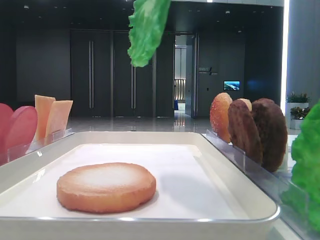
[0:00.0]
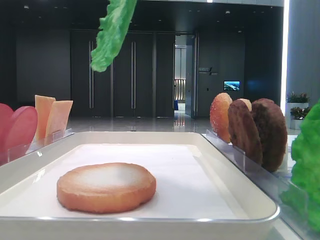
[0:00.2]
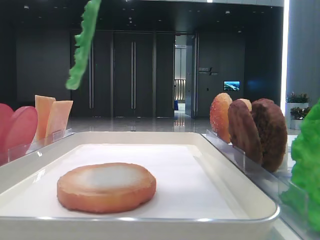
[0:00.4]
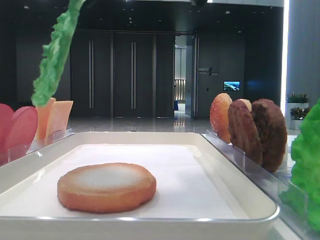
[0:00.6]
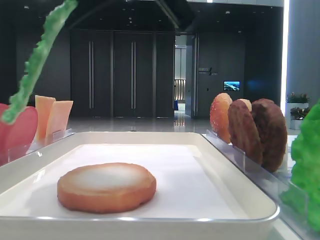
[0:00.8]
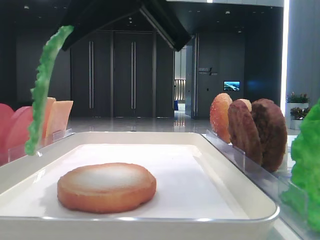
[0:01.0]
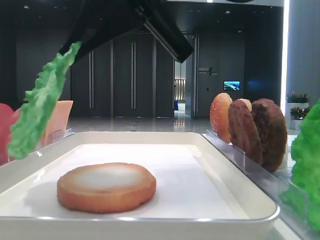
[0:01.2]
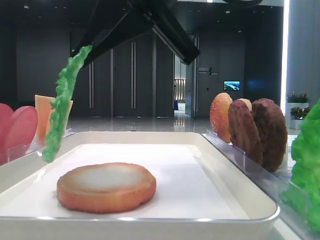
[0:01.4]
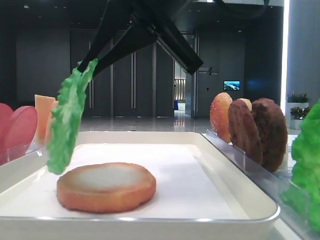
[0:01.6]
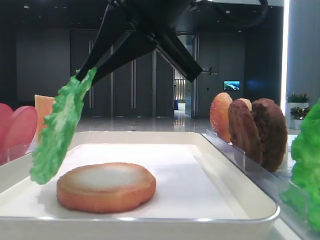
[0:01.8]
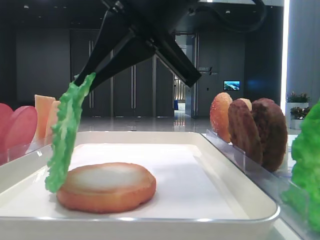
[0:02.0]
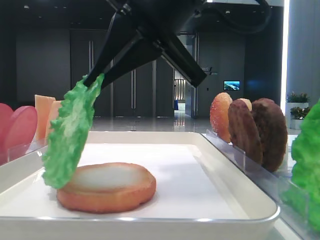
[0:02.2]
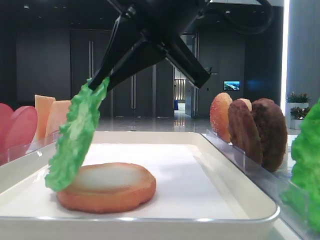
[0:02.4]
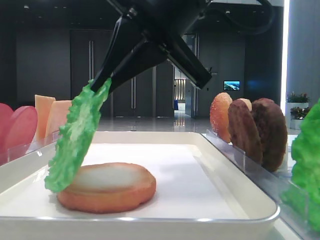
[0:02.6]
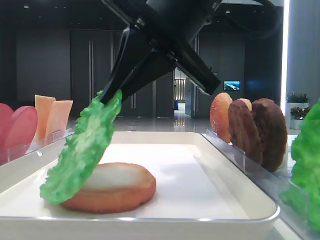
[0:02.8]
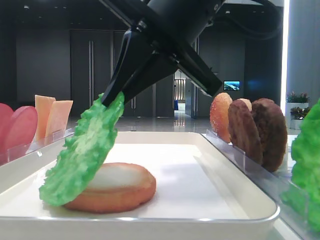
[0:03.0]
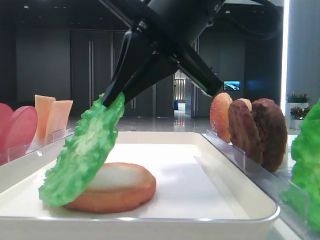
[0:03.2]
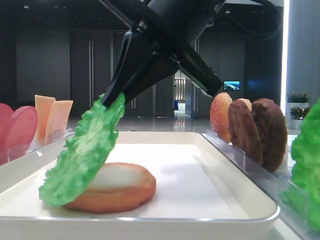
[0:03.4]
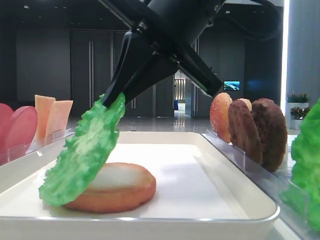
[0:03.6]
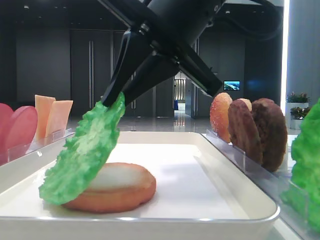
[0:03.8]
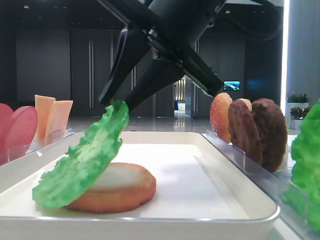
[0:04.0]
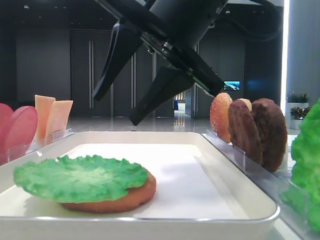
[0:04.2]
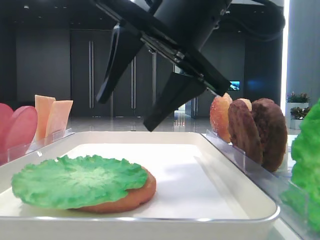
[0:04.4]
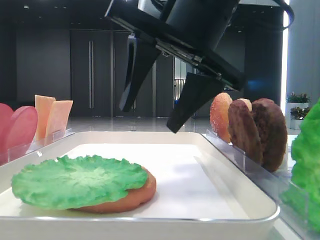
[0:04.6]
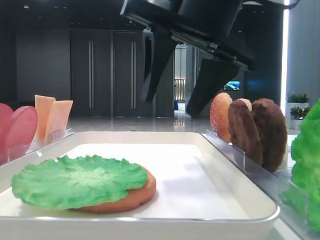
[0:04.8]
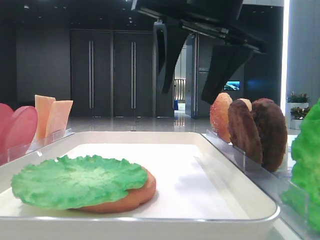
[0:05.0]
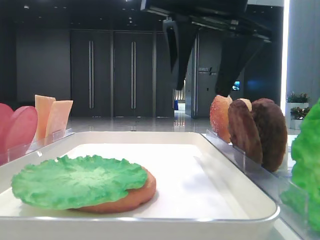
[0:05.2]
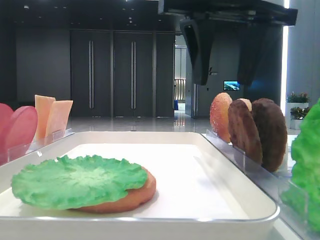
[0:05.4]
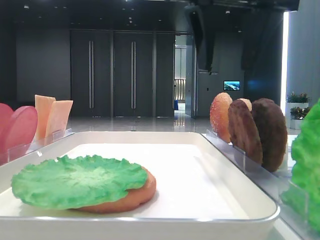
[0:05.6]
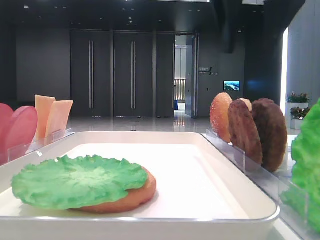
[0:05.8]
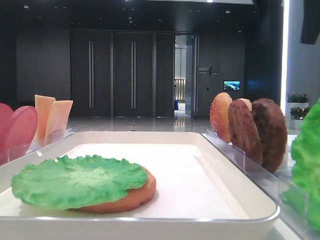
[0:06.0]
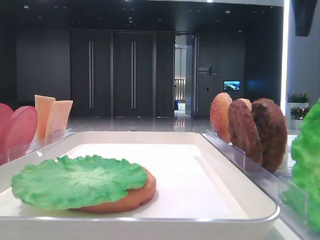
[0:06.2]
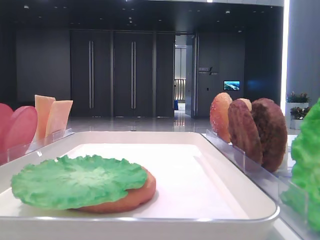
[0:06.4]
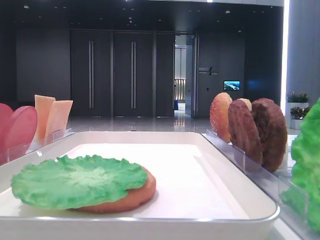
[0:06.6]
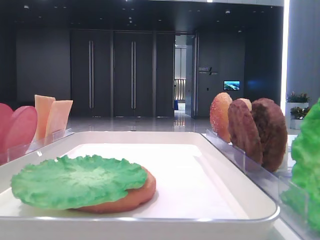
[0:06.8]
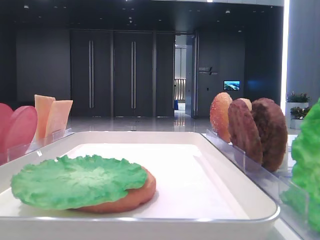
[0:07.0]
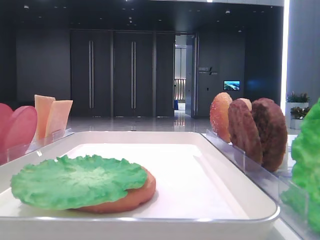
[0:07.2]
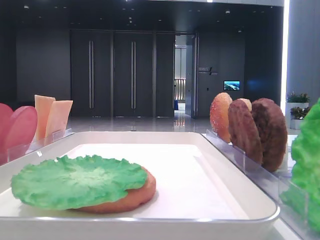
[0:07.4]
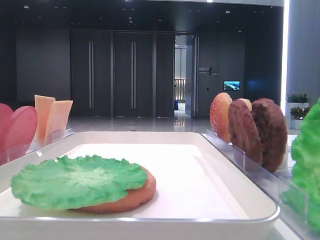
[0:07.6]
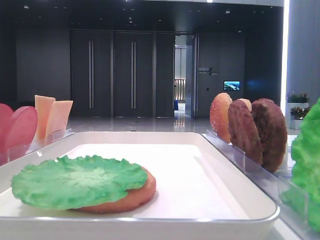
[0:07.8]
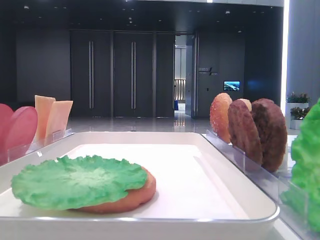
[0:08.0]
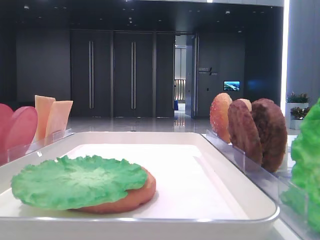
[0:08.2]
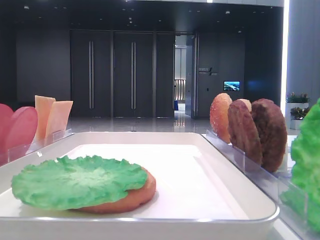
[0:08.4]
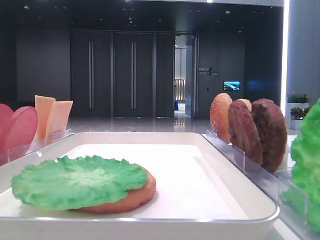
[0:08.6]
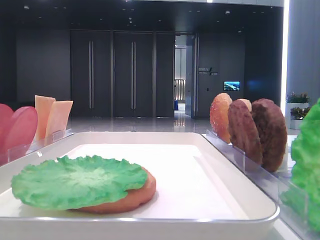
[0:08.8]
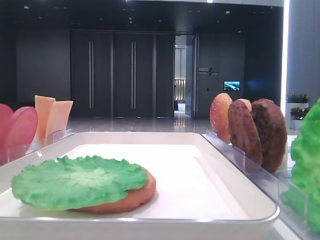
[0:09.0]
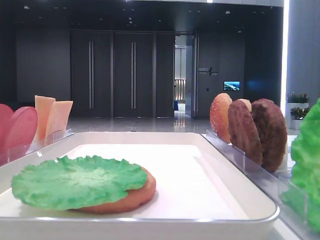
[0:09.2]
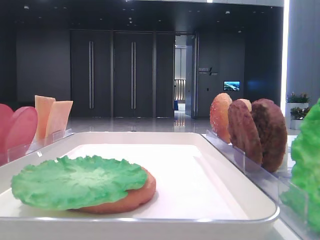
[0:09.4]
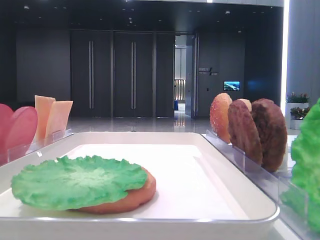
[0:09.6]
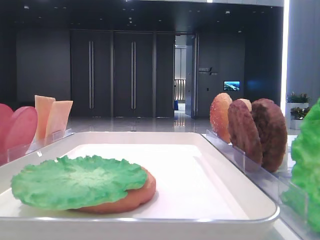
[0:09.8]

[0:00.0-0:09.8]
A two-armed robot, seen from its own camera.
Step, 0:00.0 to 0:04.0: Place the lettuce leaf on the bread slice with the right hand.
0:00.0 to 0:01.4: The right gripper travels downward and to the left by some 10 cm.
0:01.4 to 0:02.8: The grippers stay close to where they were, moving slightly.
0:02.8 to 0:04.2: The right gripper opens.
0:04.2 to 0:05.6: The right gripper heads upward, covering about 5 cm.
0:05.6 to 0:07.0: The right gripper goes some 25 cm to the right.
0:07.0 to 0:08.4: The right gripper is displaced backward by about 25 cm.

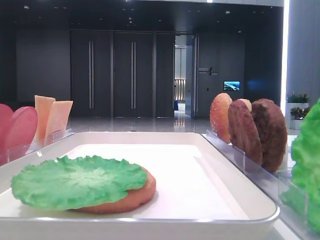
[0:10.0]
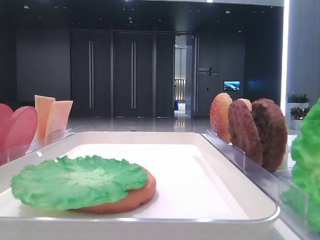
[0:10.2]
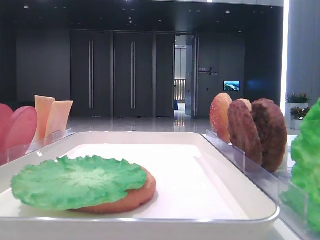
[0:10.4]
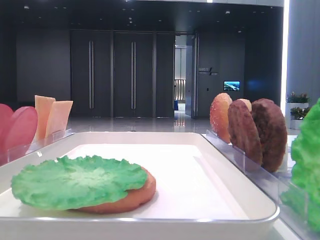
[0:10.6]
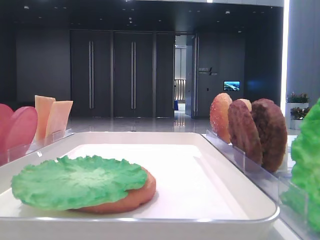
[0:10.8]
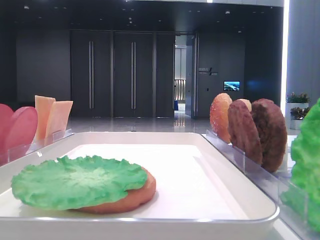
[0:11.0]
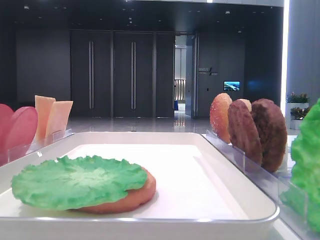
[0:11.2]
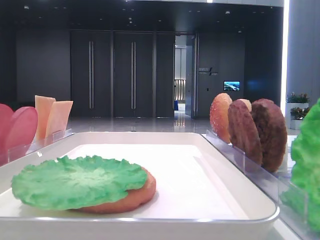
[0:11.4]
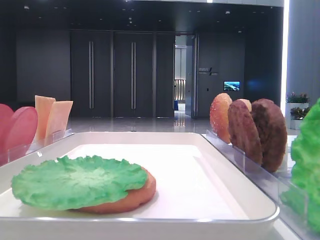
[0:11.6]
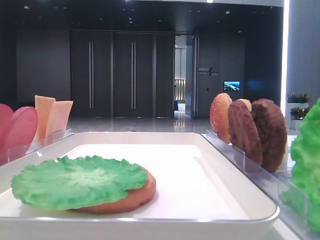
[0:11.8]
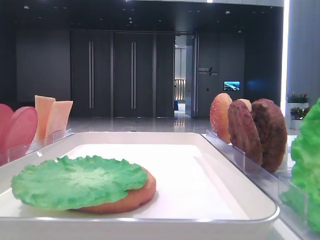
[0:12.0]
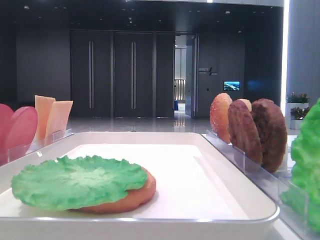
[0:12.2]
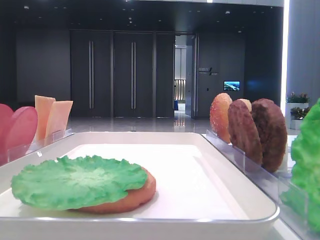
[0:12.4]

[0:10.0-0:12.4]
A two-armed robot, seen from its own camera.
0:10.0 to 0:12.4: Neither gripper changes place.

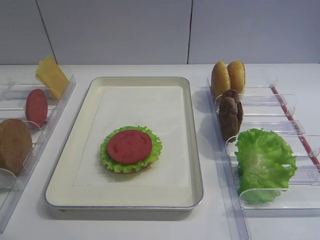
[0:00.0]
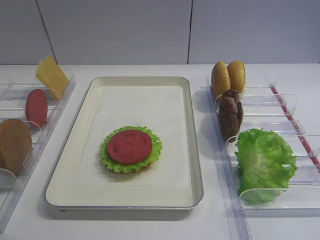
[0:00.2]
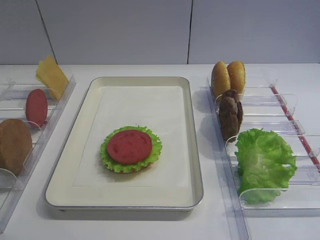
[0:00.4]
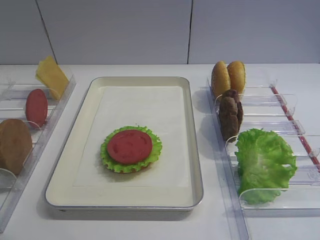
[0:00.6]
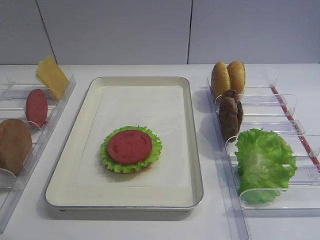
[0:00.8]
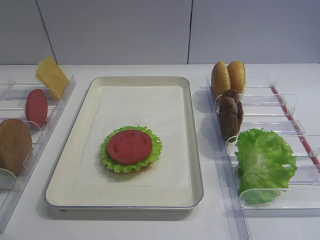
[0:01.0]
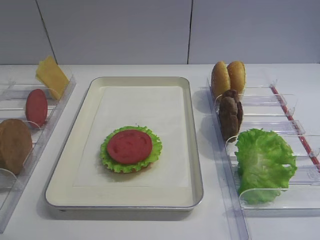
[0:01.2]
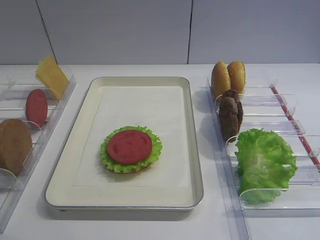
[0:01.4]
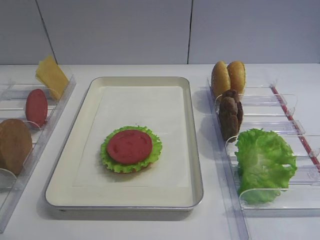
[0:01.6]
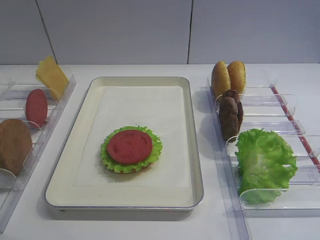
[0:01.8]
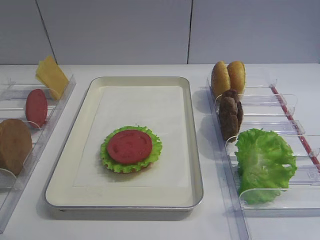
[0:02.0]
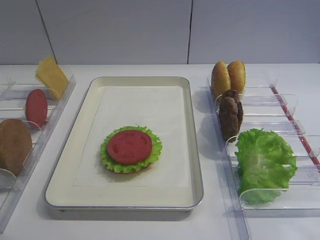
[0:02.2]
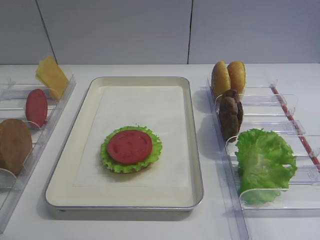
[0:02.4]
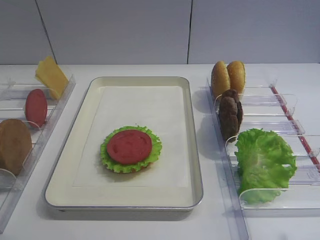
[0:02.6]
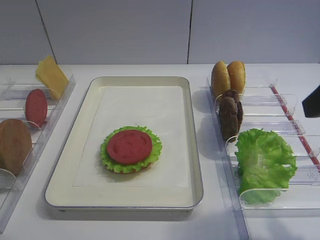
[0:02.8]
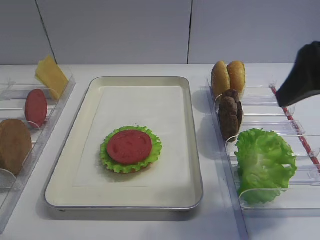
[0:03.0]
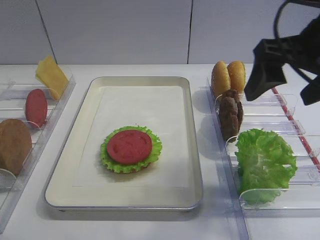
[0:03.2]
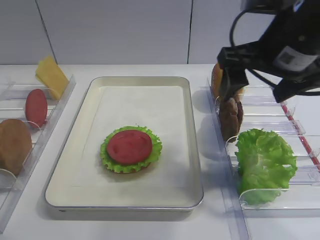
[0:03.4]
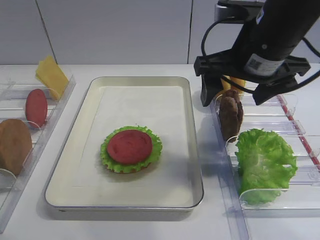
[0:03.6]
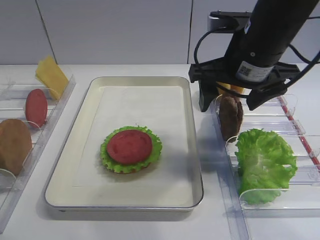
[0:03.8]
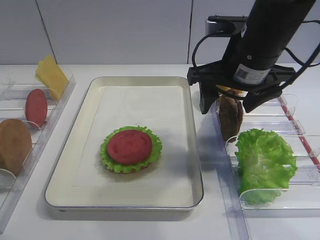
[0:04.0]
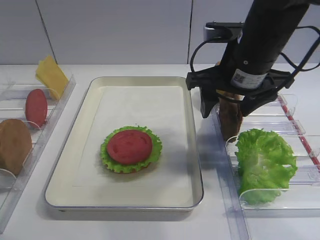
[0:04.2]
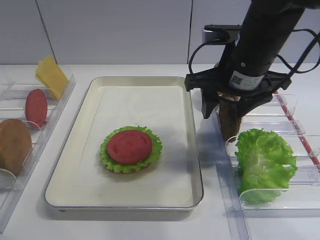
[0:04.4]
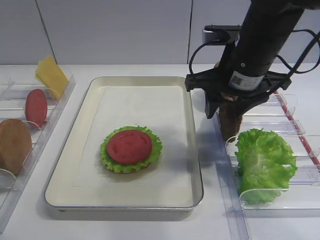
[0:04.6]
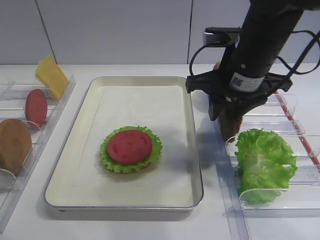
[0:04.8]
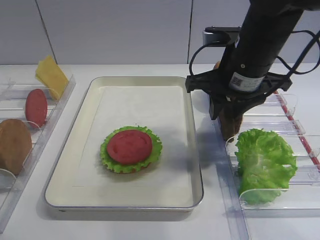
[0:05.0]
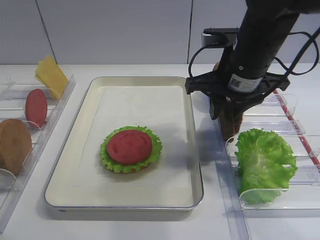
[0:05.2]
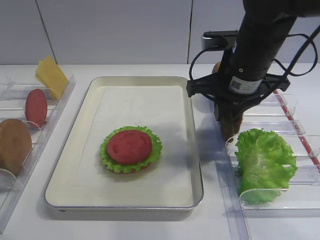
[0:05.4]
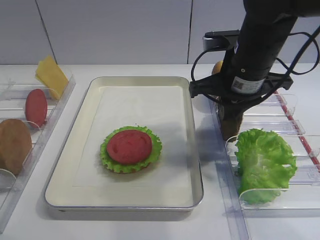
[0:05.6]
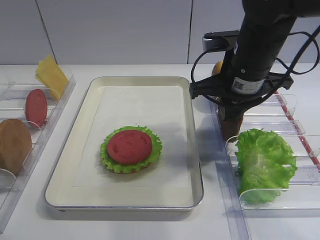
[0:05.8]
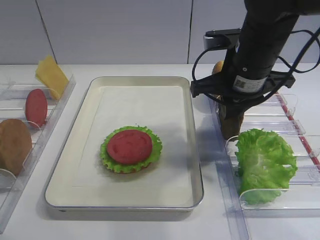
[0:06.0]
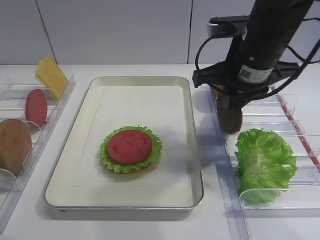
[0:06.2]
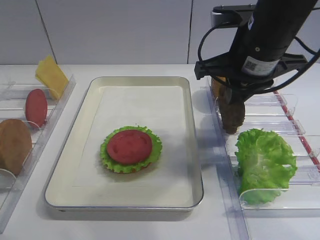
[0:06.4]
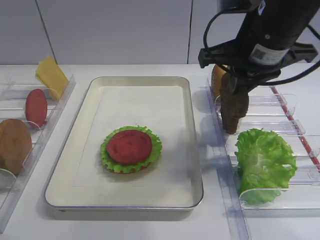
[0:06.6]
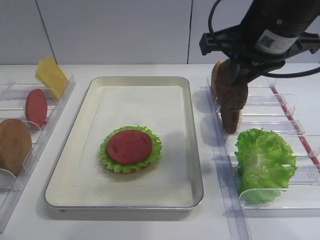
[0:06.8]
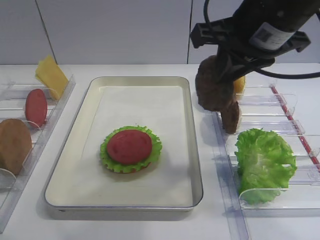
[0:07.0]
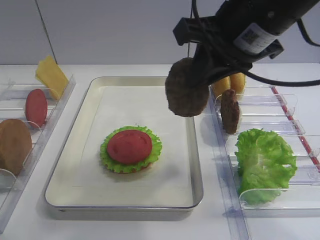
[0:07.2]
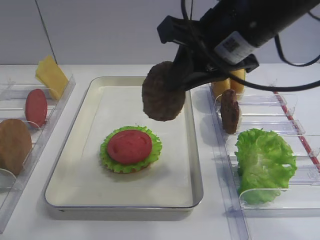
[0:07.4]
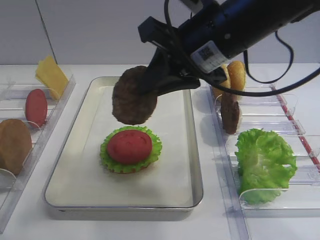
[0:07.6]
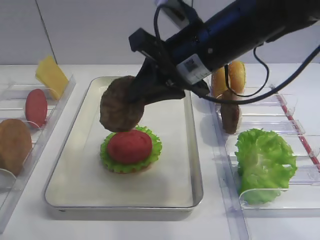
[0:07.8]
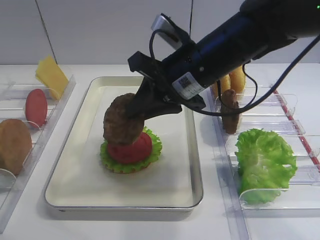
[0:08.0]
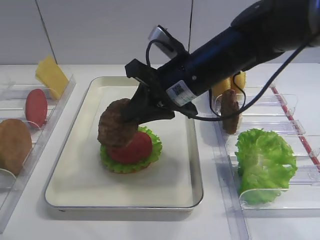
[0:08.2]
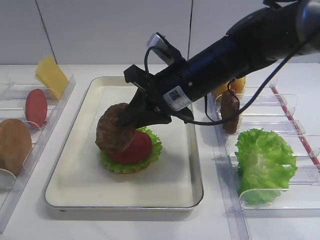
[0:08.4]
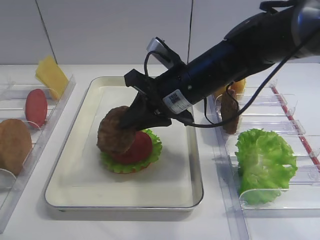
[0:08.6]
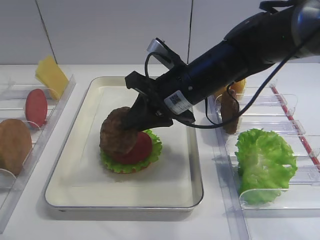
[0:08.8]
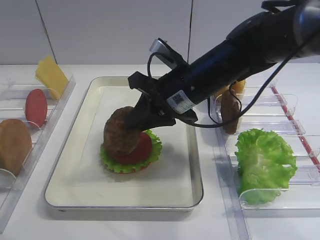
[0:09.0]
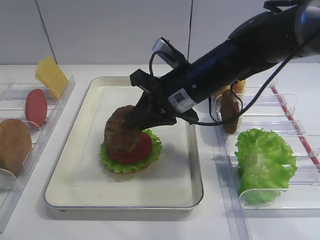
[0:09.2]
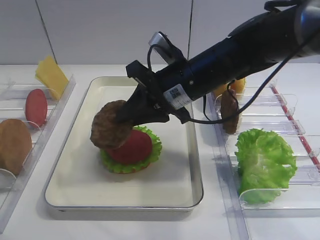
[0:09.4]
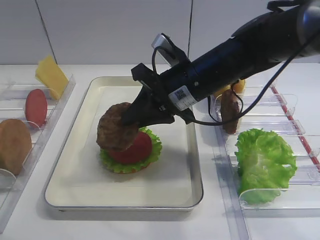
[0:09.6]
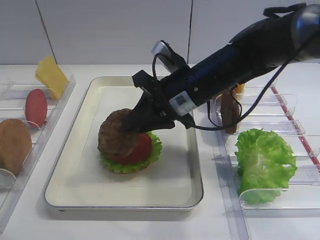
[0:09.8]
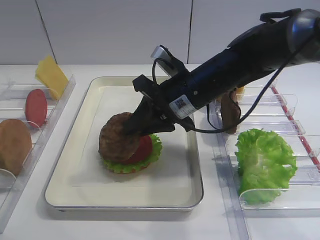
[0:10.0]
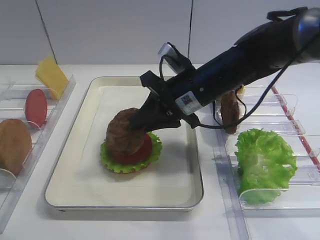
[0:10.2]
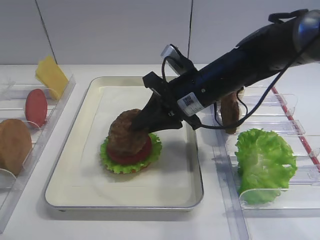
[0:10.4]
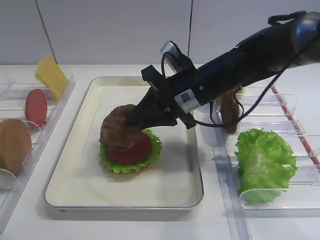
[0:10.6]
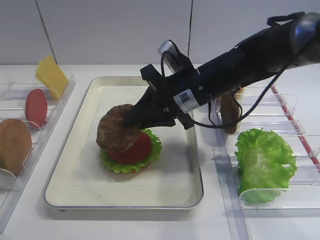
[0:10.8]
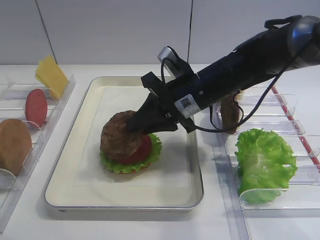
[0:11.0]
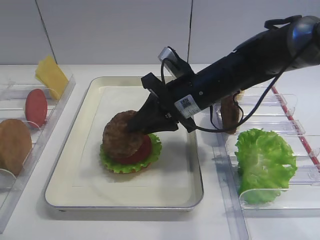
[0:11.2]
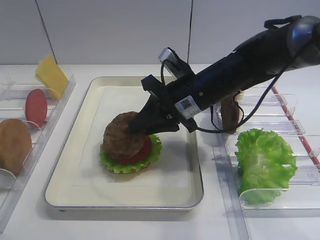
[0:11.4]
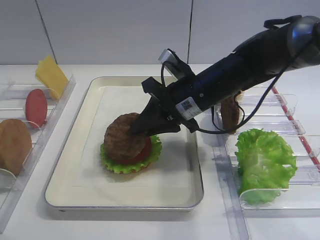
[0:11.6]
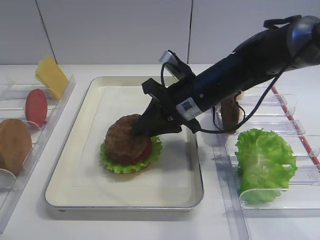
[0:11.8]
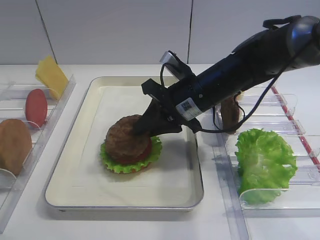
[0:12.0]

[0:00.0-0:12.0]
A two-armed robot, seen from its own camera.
Step, 0:00.0 to 0:06.6: Pick up the cutlet with the right gripper.
0:01.6 to 0:03.0: The right gripper goes approximately 20 cm forward, and opens.
0:03.0 to 0:04.4: The right gripper shifts about 15 cm to the left, forward and downward.
0:04.4 to 0:06.0: The right gripper closes up.
0:06.0 to 0:07.6: The right gripper moves upward, some 5 cm.
0:07.6 to 0:09.0: The right gripper travels downward by about 10 cm.
0:09.0 to 0:12.0: The grippers stay close to where they were, moving slightly.
